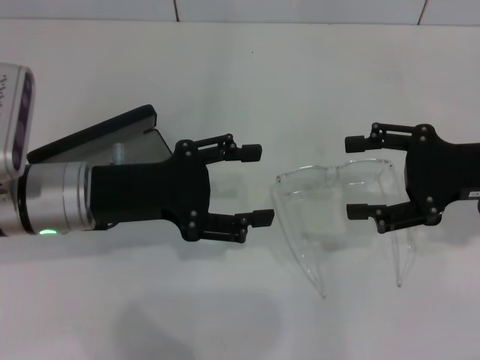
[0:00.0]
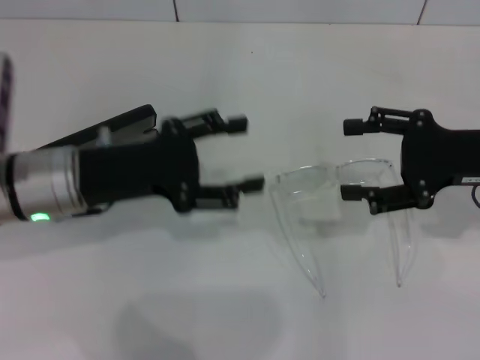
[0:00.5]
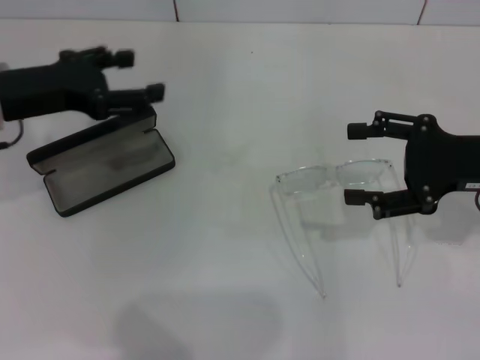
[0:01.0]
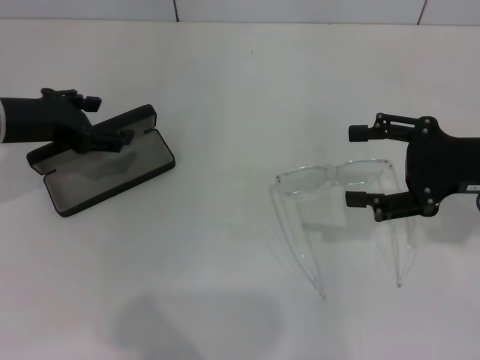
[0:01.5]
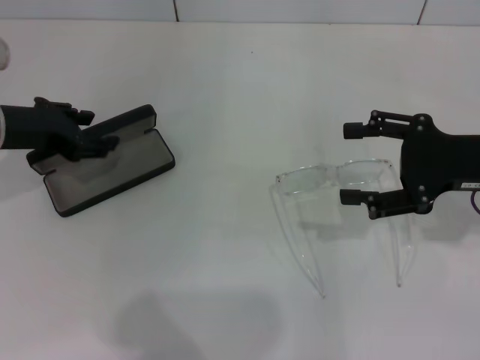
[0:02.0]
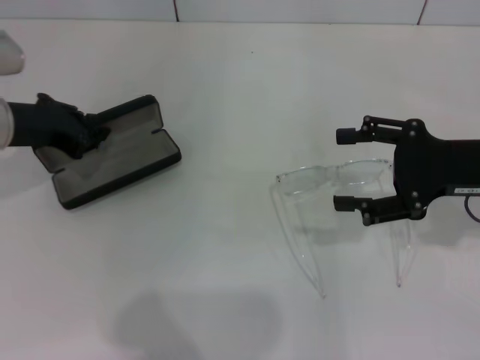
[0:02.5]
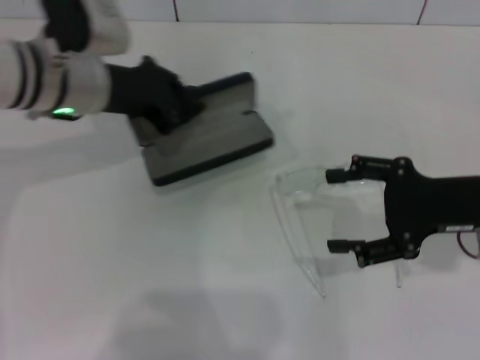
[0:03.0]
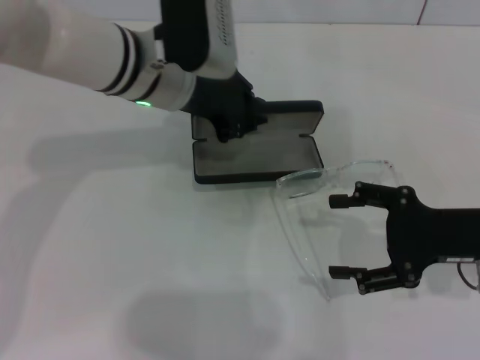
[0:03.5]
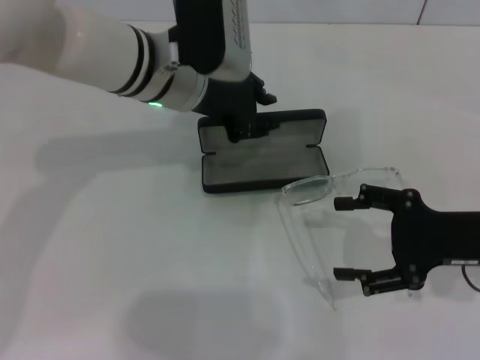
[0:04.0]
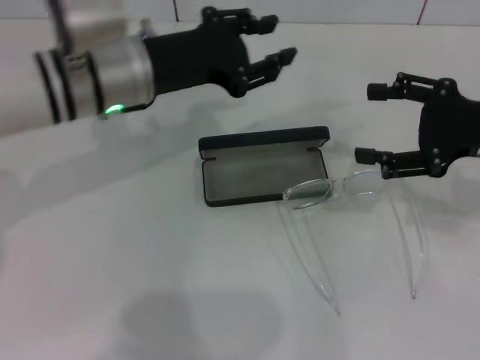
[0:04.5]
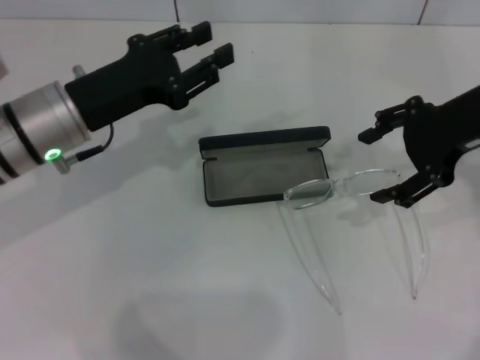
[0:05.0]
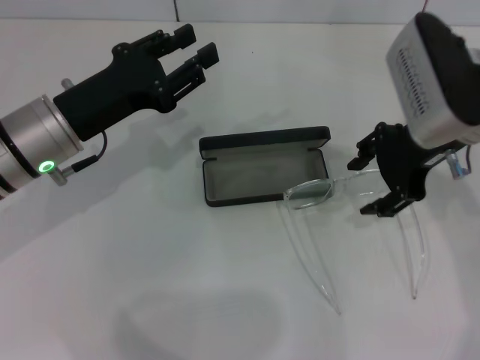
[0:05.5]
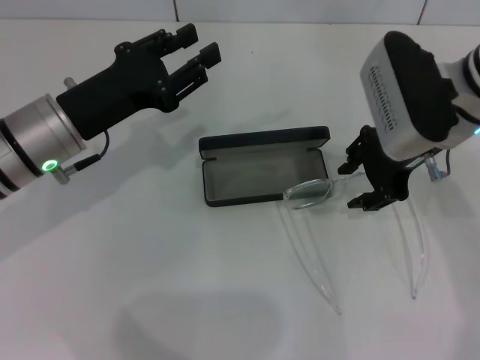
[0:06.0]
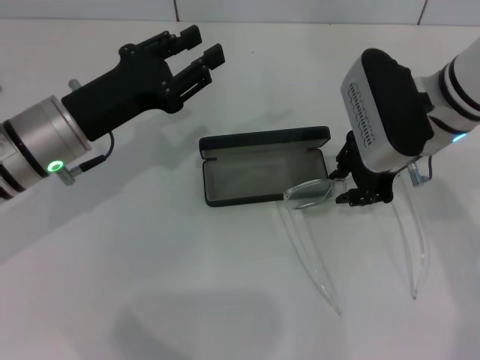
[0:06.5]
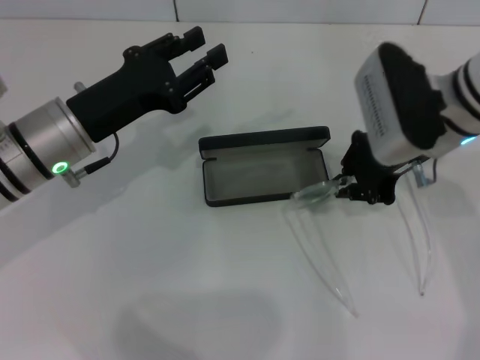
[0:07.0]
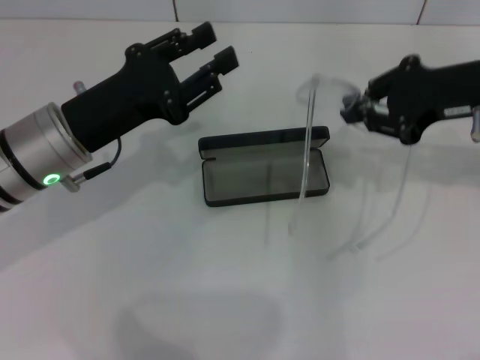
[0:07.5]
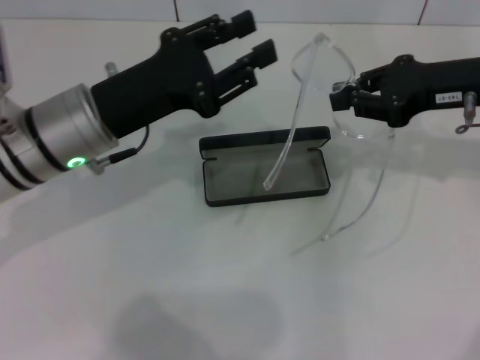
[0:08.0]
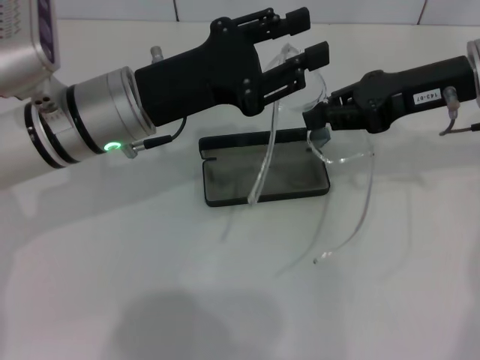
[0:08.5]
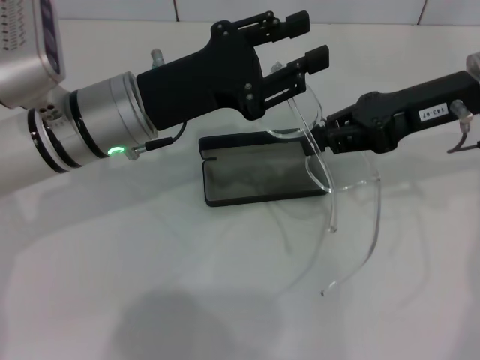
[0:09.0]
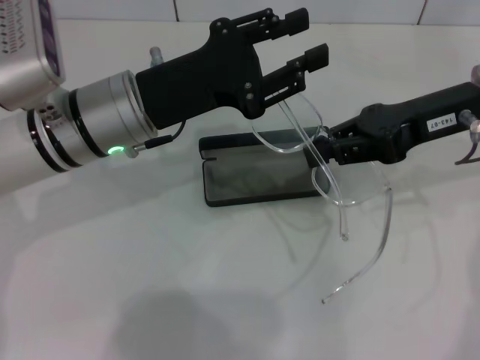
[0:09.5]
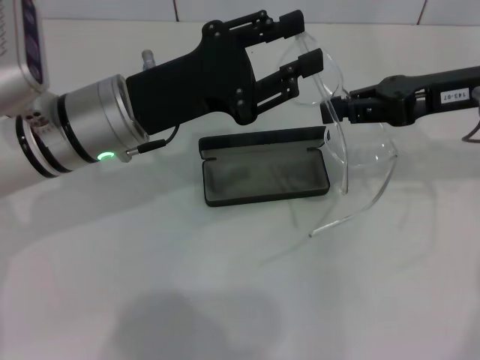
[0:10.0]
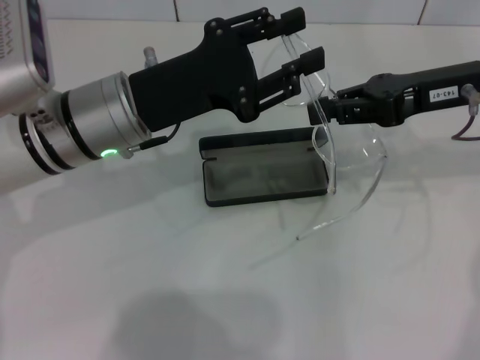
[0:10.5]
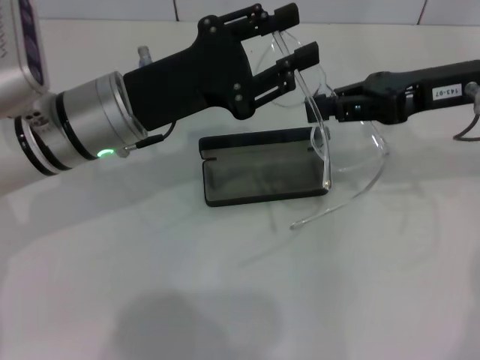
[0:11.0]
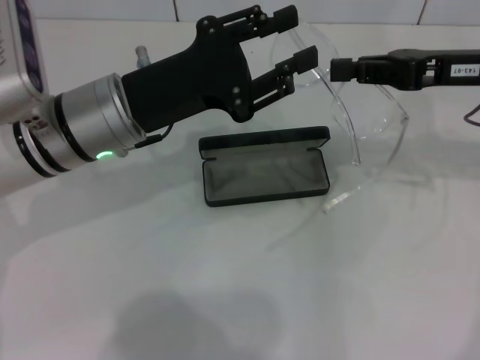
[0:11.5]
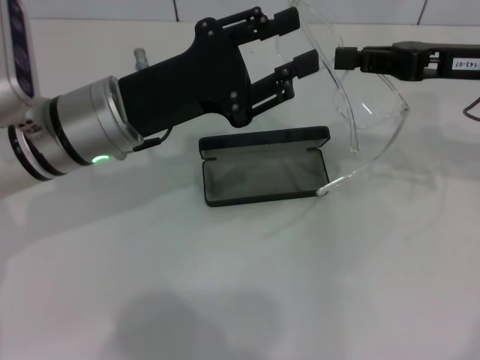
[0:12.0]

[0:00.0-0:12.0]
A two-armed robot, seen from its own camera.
Step, 0:00.0 to 0:02.5: Grab the glasses case with your left hand.
Step, 0:03.0 to 0:04.0: Place the glasses case in the center of the table with your left hand.
Step, 0:04.5 to 0:06.5: Grab the eyeglass frame with your right hand.
0:00.0 to 0:02.0: The left gripper shifts approximately 10 cm to the left and forward.
0:02.0 to 0:04.0: The left gripper is displaced to the right by about 20 cm, and closes up; the right gripper ends up about 5 cm from where it was.
0:04.0 to 0:06.0: The left gripper shifts approximately 15 cm to the left and backward, and opens its fingers, while the right gripper is displaced to the left, forward and upward by roughly 15 cm, and closes up.
0:06.0 to 0:08.0: The right gripper is displaced to the right by approximately 10 cm, and closes up.
0:10.0 to 0:12.0: The grippers make only small movements.

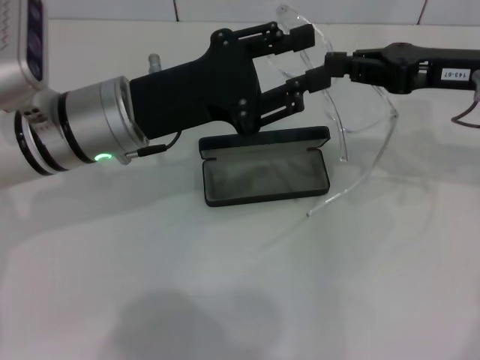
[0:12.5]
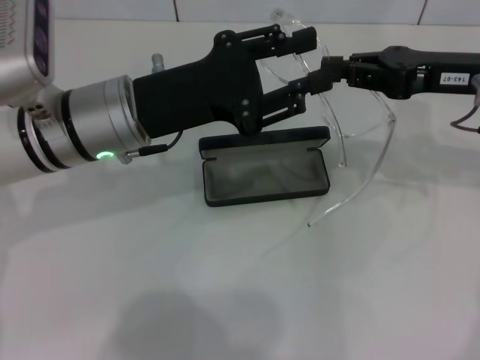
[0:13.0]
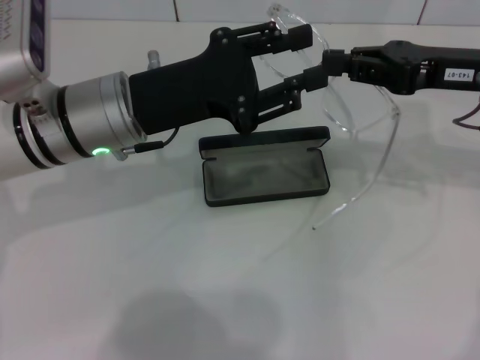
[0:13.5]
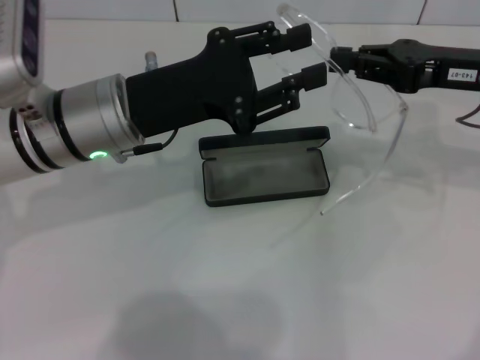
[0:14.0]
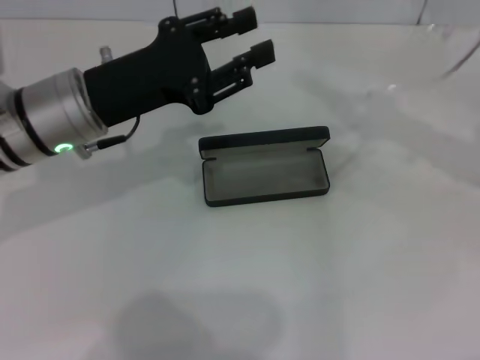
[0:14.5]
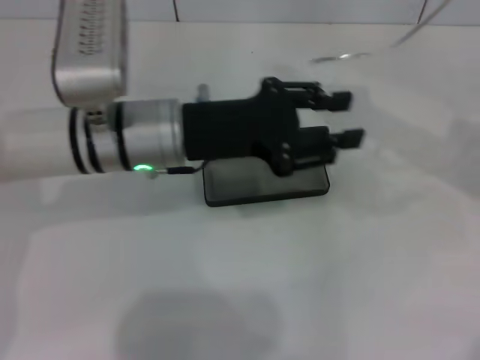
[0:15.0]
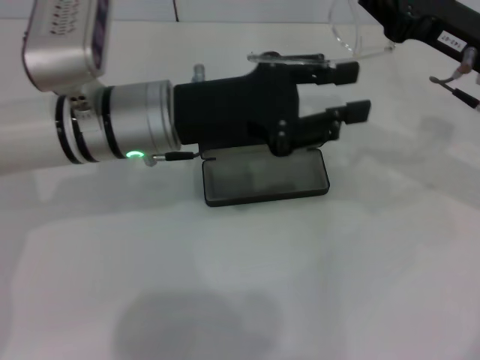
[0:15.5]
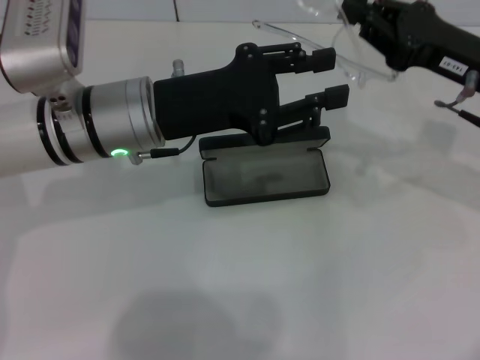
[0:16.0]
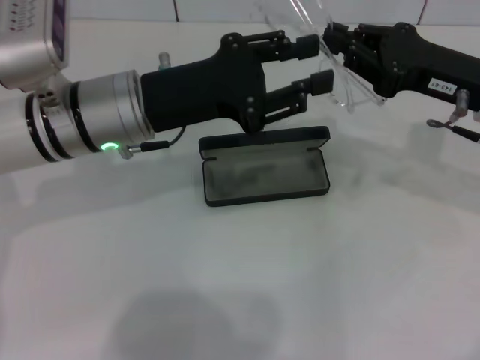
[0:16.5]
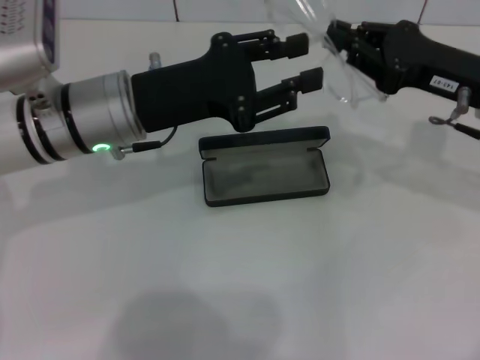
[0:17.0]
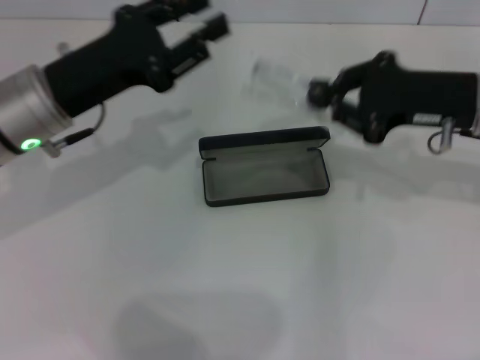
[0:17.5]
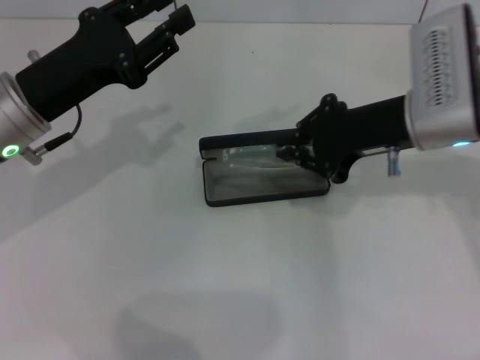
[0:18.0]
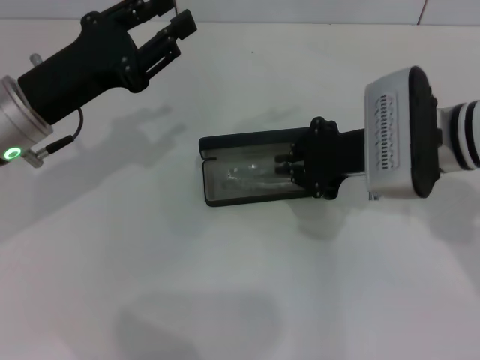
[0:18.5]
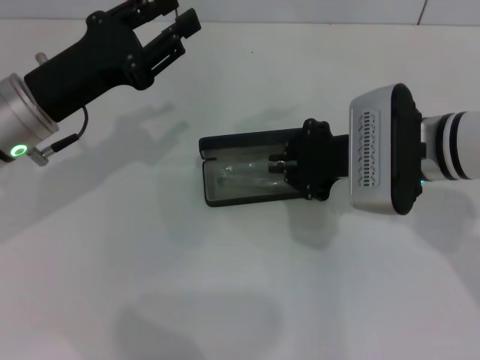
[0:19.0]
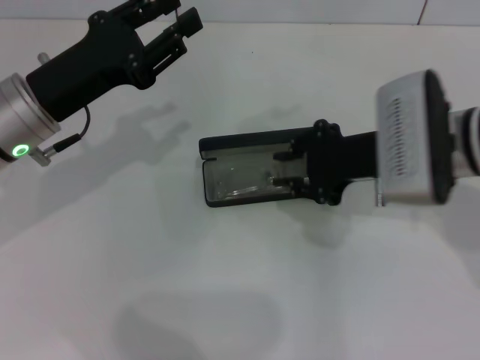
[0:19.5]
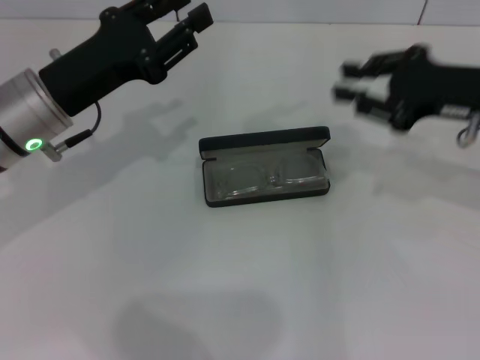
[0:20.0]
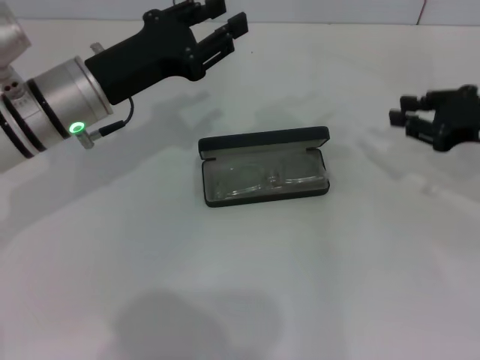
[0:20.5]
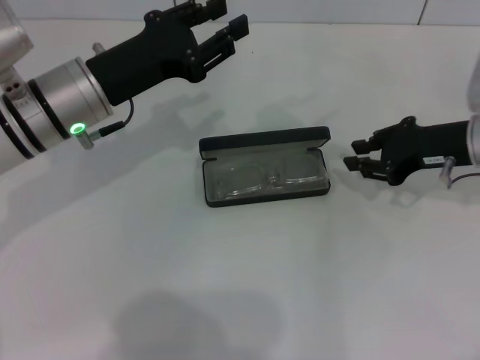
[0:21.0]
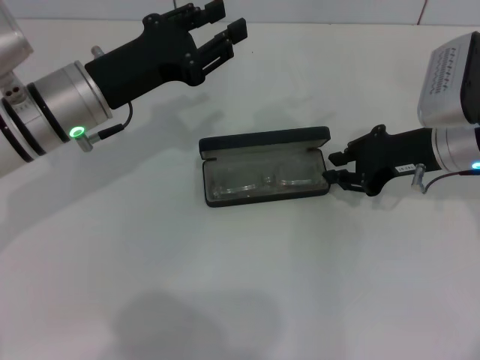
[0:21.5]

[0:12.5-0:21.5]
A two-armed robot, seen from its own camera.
Step, 0:12.5 to 0:17.0: Fold the frame with your left hand.
Step, 0:17.5 to 0:19.5: Put the glasses into the case with your right hand.
0:12.5 to 0:14.5: The right gripper shifts roughly 5 cm to the right.
0:14.5 to 0:17.0: The right gripper travels to the left by roughly 5 cm.
0:17.0 to 0:19.5: Both grippers travel together to the left, some 5 cm.
0:19.5 to 0:21.5: The right gripper is displaced to the right by roughly 5 cm.

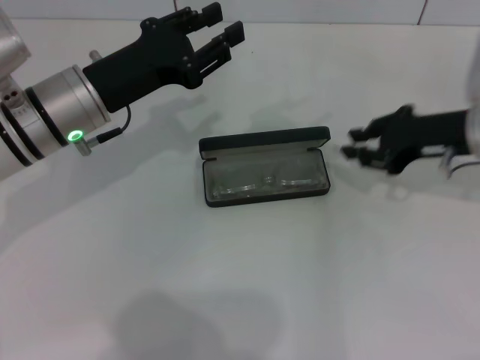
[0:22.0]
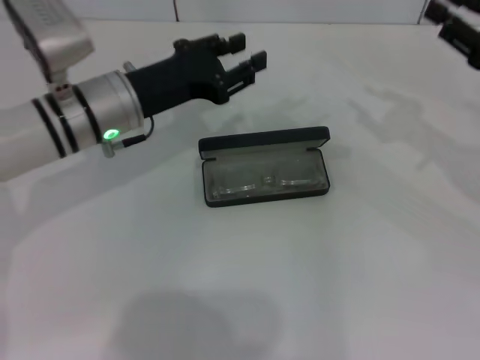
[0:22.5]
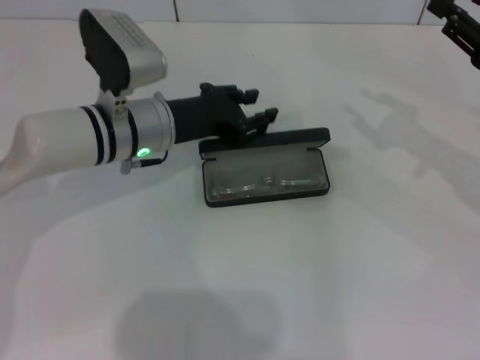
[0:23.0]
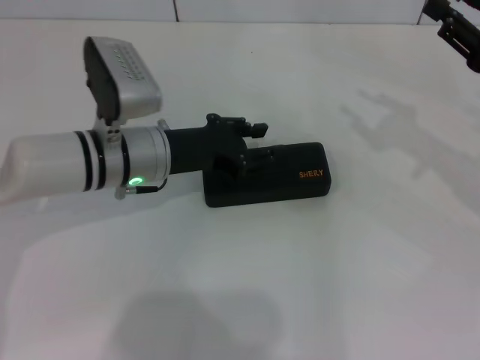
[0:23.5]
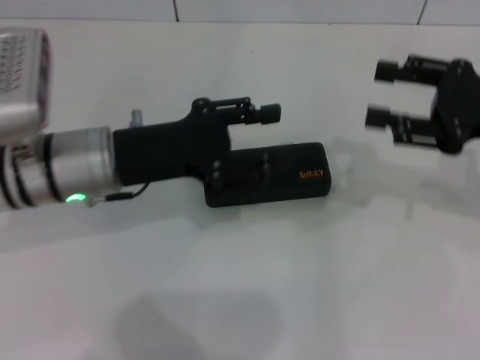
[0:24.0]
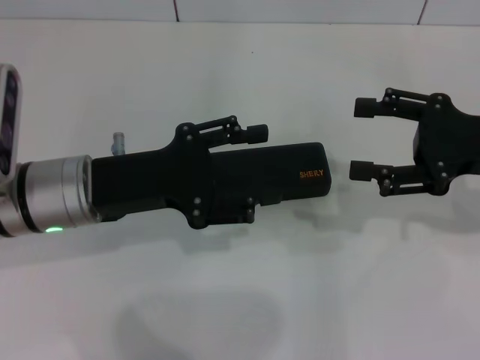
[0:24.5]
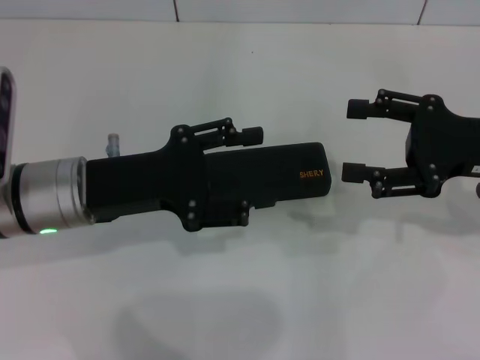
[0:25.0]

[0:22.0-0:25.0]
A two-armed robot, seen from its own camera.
0:22.0 to 0:23.5: The right gripper shifts about 5 cm to the right; the left gripper shifts by approximately 5 cm.
0:23.5 to 0:25.0: The right gripper opens its fingers, while the left gripper heads backward and to the left, covering some 10 cm, and opens.

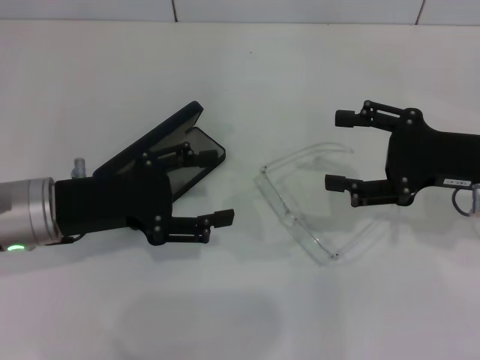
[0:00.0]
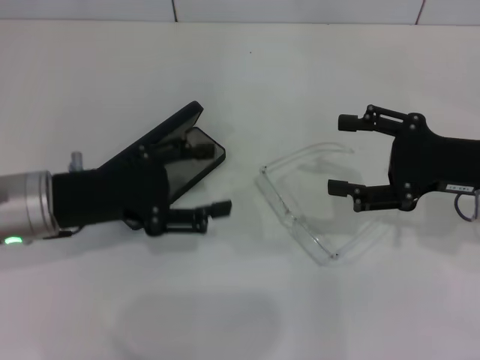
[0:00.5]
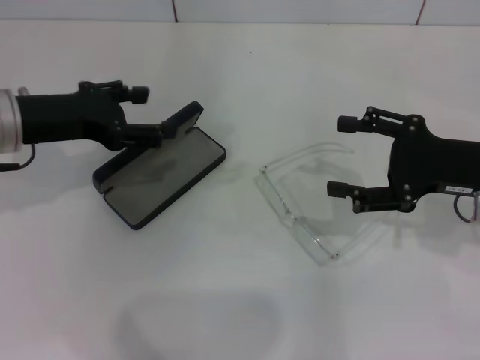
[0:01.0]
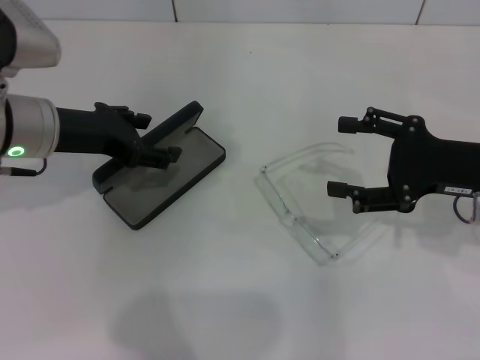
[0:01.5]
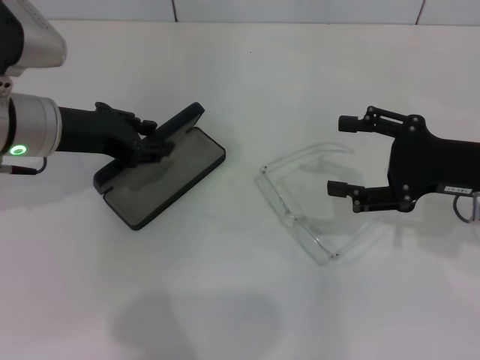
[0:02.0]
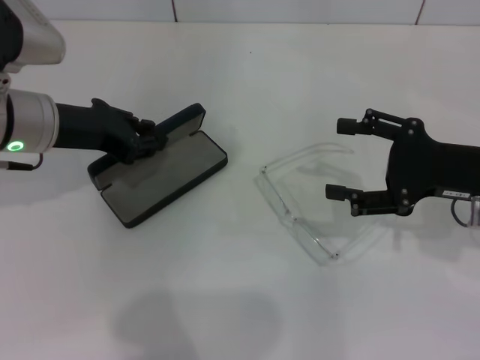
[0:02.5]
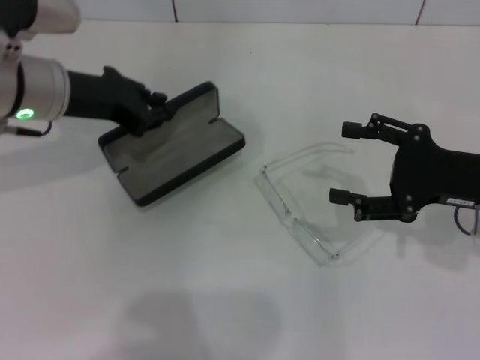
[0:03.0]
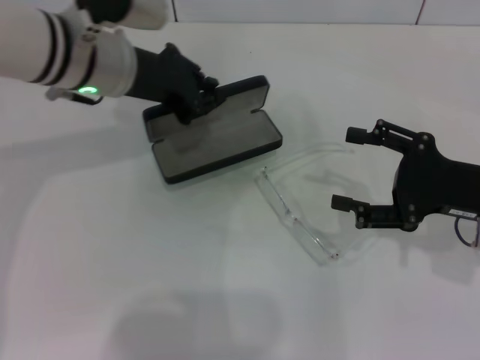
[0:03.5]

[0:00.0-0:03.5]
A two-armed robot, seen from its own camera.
Step, 0:00.0 to 0:02.0: Grab the glasses case with your left hand.
0:00.0 to 0:02.0: The left gripper moves forward, approximately 5 cm, and closes up.
0:02.0 to 0:03.5: The left gripper heads to the right, covering about 10 cm, and closes up.
